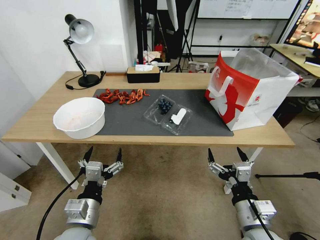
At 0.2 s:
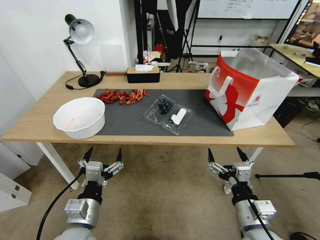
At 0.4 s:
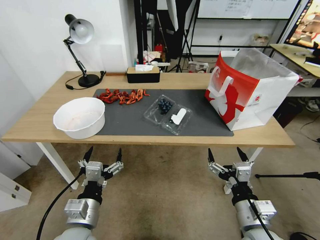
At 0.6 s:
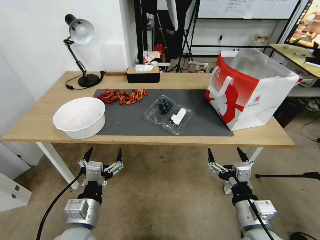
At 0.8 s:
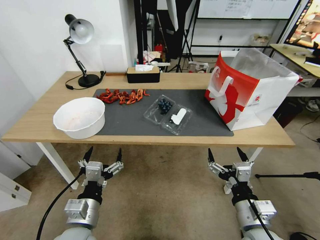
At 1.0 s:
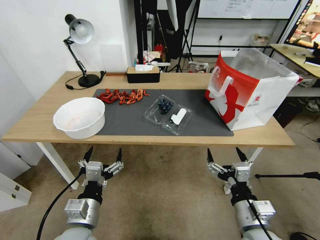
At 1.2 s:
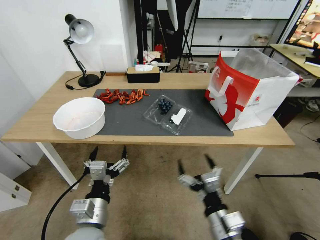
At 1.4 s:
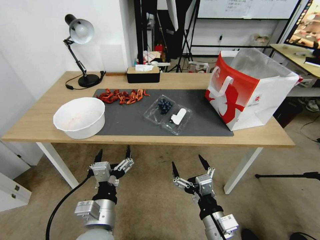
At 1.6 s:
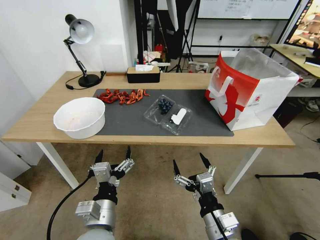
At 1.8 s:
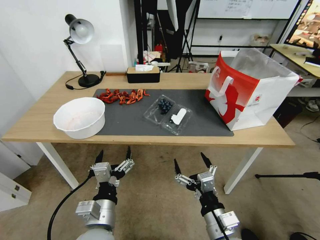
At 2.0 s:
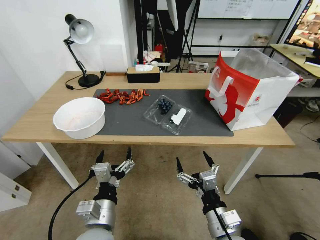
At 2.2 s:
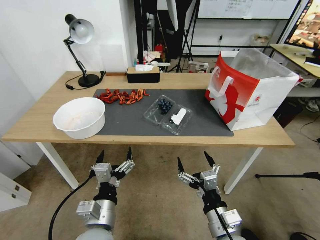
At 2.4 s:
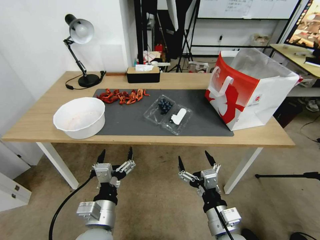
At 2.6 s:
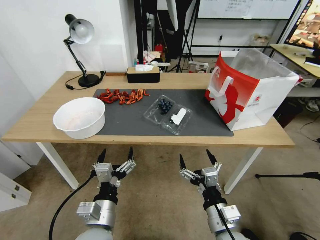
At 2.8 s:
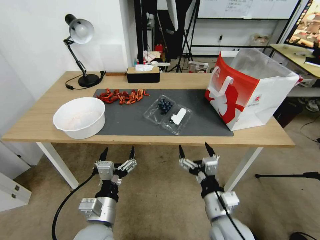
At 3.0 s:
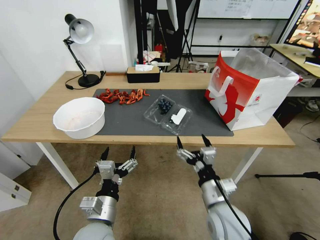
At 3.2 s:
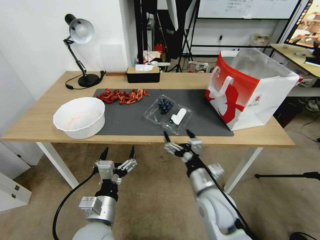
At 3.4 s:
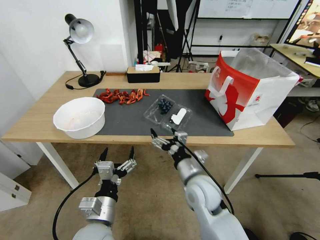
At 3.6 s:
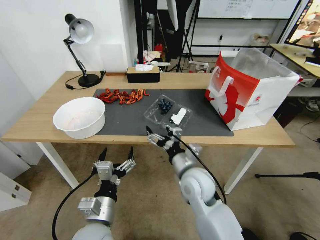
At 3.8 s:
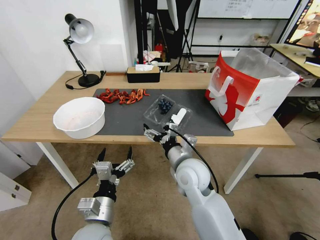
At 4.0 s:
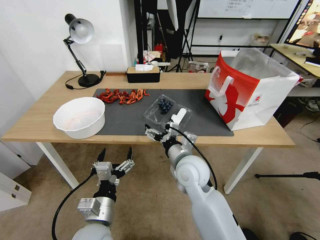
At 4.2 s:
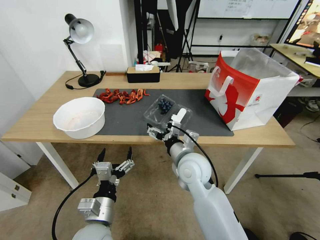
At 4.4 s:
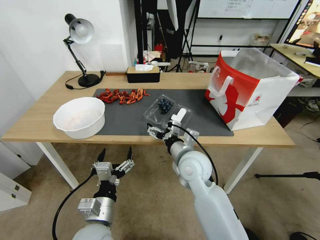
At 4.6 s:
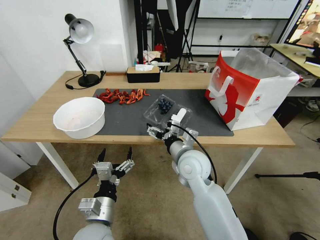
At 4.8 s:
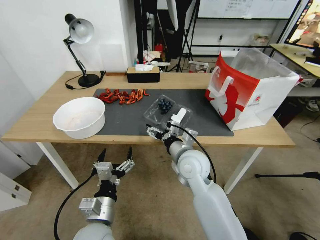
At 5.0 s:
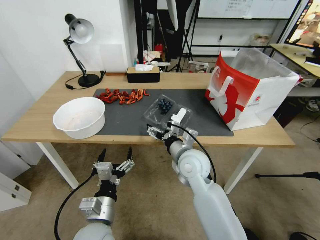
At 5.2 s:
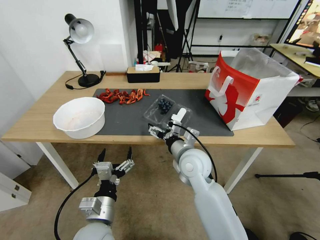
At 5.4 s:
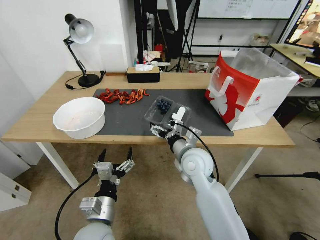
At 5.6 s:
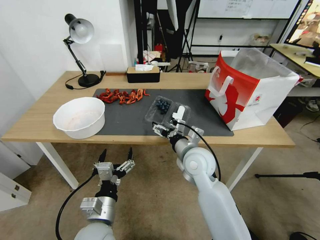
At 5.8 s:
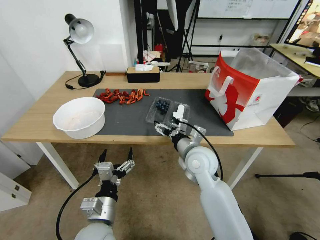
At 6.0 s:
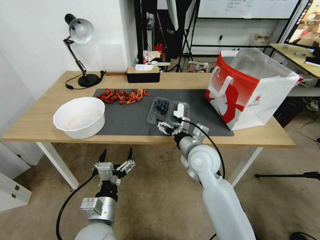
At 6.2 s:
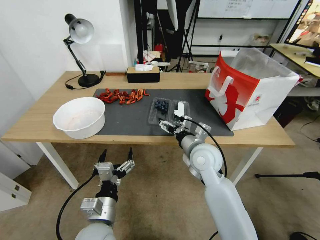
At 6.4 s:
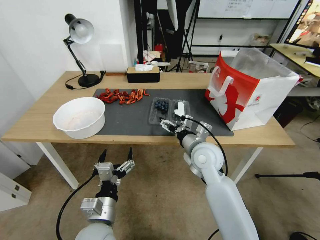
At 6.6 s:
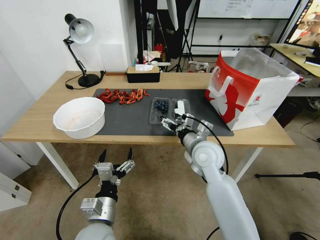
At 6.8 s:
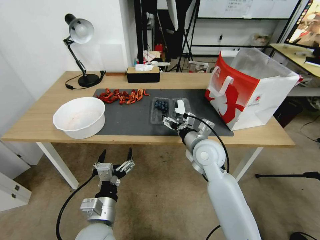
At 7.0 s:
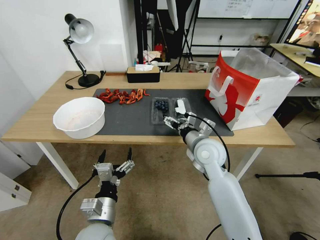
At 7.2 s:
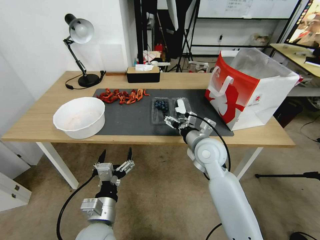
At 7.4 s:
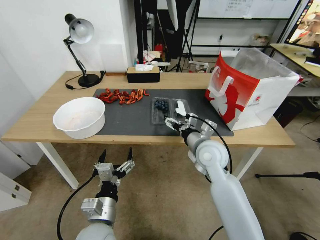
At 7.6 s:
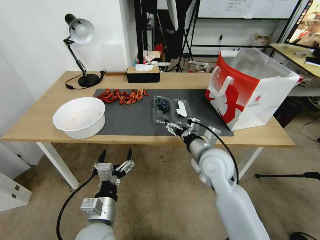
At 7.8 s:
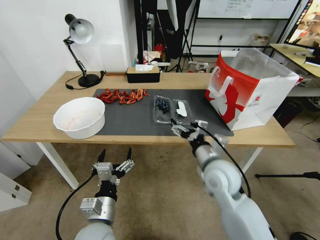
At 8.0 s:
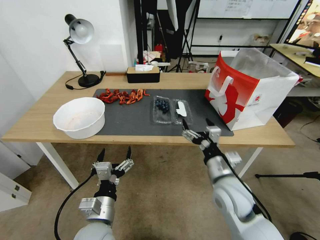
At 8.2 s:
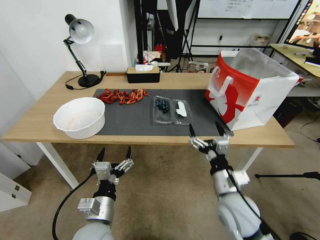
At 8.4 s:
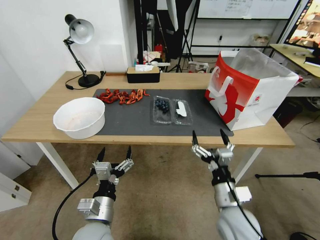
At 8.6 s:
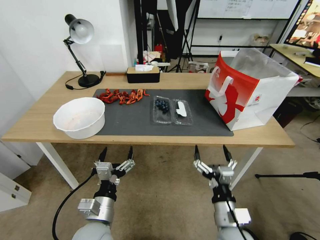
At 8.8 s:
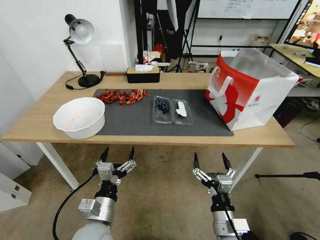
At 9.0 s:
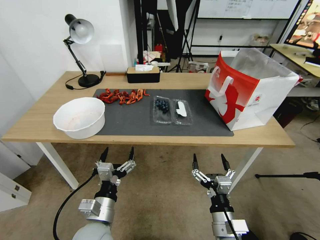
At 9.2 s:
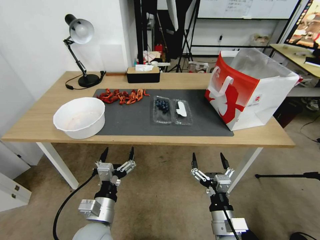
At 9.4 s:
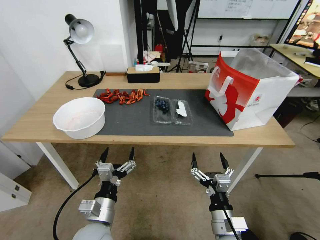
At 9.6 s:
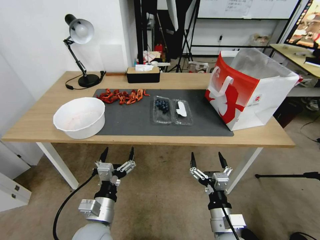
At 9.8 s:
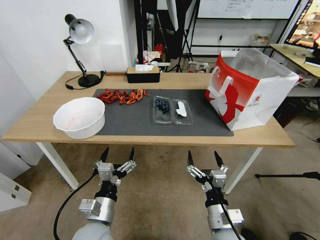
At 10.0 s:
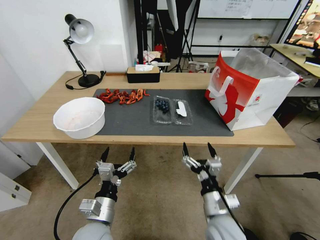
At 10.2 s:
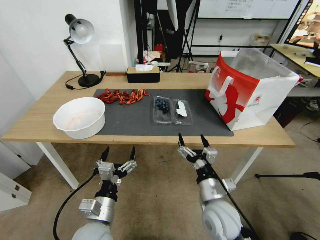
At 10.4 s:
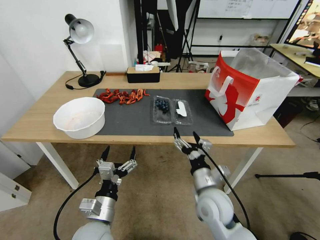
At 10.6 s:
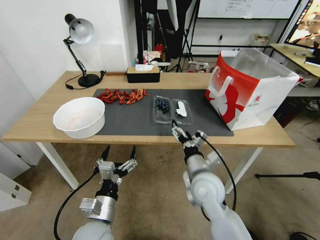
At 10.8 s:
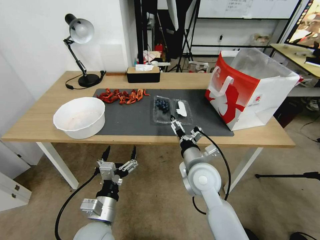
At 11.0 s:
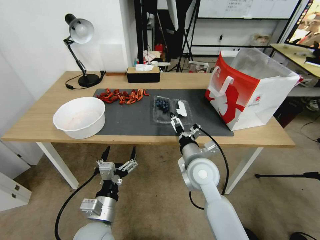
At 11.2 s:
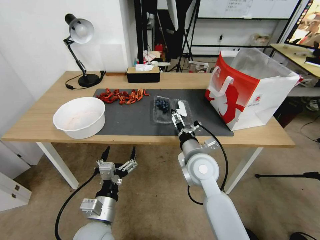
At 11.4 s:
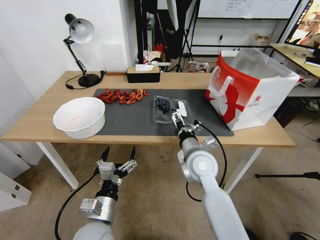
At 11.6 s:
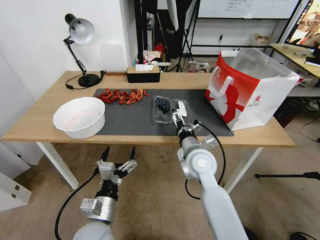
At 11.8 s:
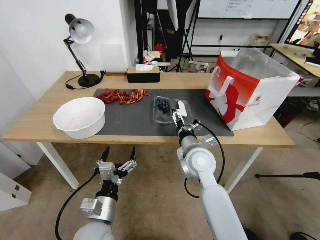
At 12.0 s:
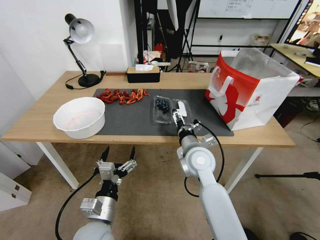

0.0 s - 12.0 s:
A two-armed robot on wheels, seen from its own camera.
Task of the whole recording: Close the takeout container lid, then place the container into the takeout bag.
1.6 s - 3.0 s: The right gripper travels forward by approximately 10 cm.
3.0 s - 4.4 s: The right gripper shifts roughly 15 cm forward, to the left and upward.
4.4 s - 6.0 s: The grippers stay close to where they were, moving slightly.
6.0 s - 7.6 s: There are only small adjustments of the grippers.
7.6 s - 9.0 s: The right gripper shifts about 25 cm backward and downward.
9.0 s - 10.4 s: The right gripper heads forward, covering roughly 10 cm.
10.4 s - 12.0 s: The right gripper travels forward and upward by roughly 10 cm.

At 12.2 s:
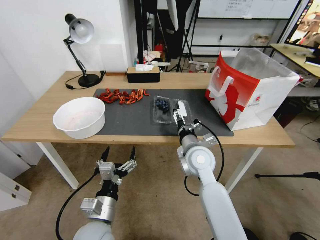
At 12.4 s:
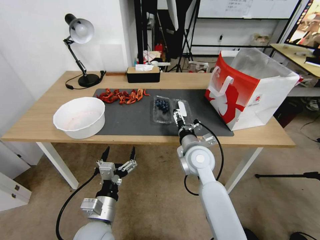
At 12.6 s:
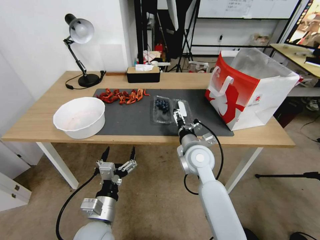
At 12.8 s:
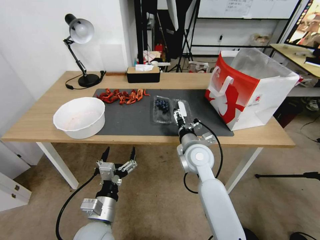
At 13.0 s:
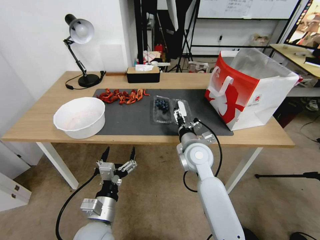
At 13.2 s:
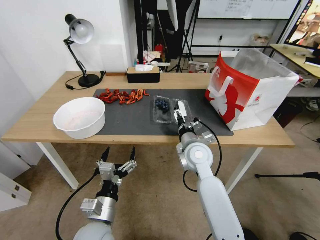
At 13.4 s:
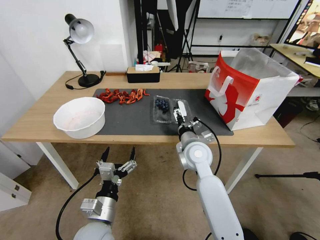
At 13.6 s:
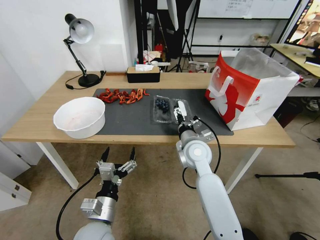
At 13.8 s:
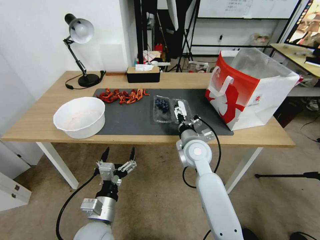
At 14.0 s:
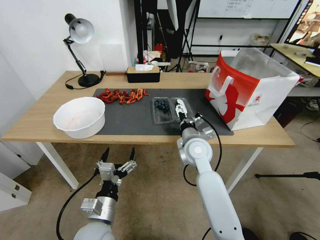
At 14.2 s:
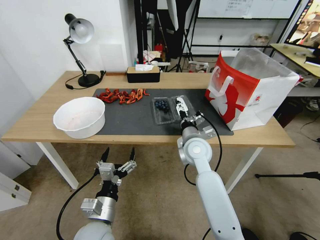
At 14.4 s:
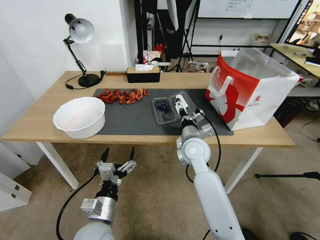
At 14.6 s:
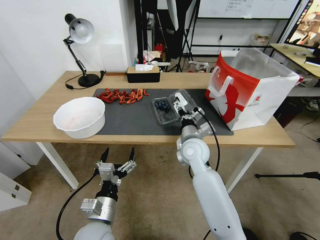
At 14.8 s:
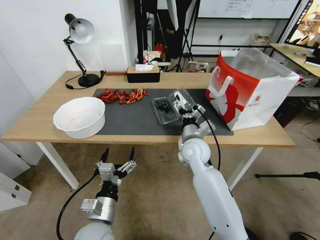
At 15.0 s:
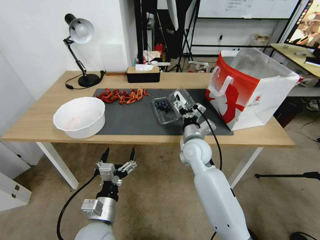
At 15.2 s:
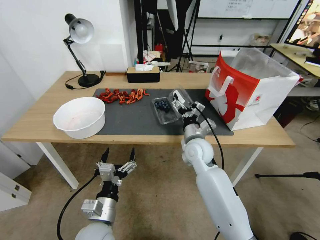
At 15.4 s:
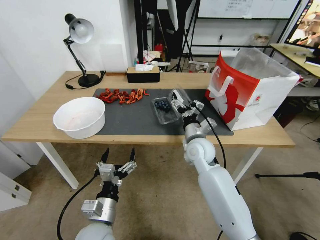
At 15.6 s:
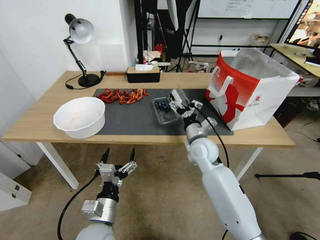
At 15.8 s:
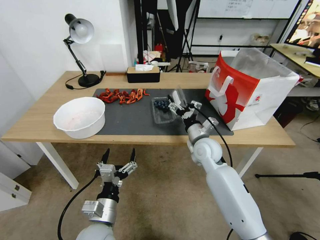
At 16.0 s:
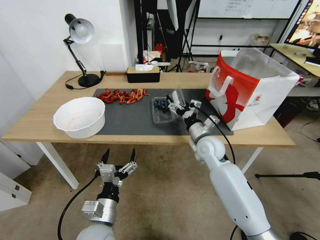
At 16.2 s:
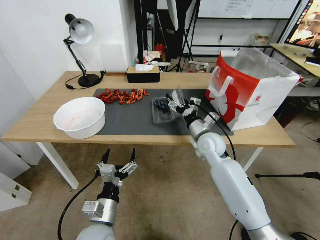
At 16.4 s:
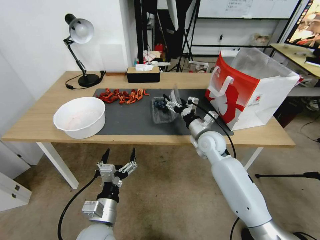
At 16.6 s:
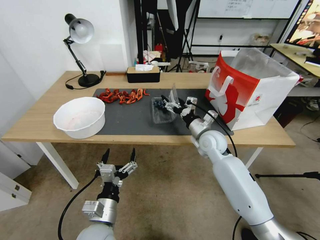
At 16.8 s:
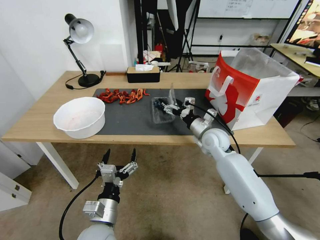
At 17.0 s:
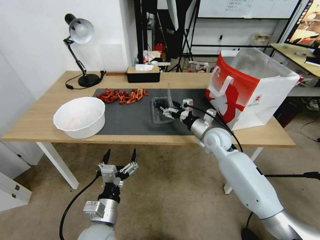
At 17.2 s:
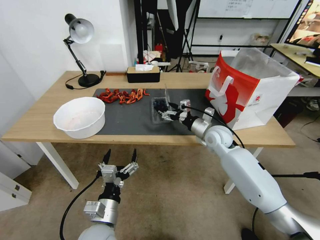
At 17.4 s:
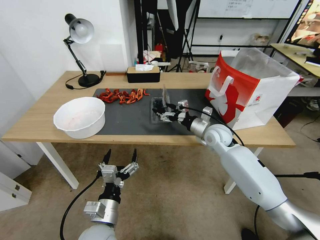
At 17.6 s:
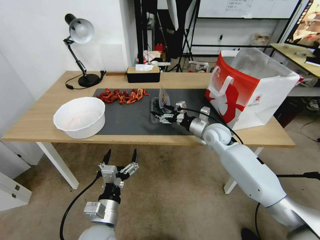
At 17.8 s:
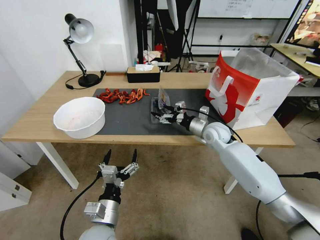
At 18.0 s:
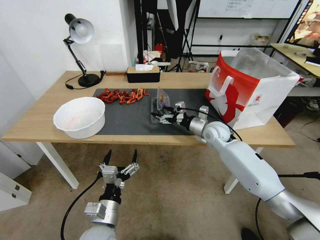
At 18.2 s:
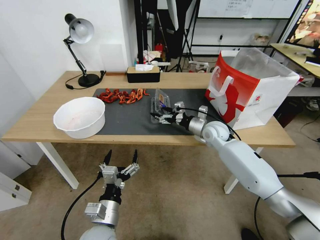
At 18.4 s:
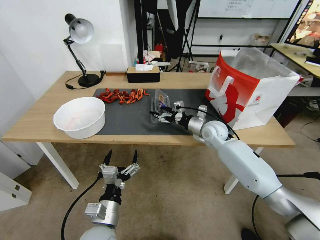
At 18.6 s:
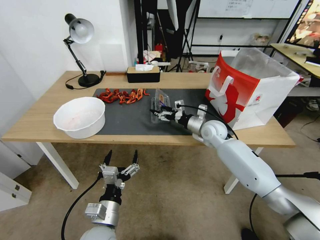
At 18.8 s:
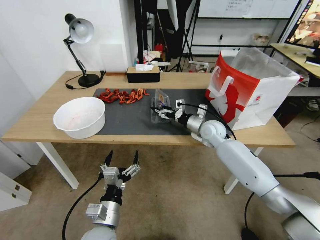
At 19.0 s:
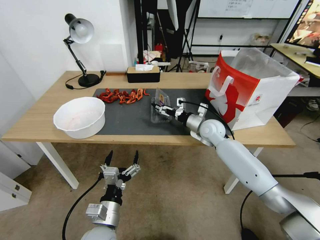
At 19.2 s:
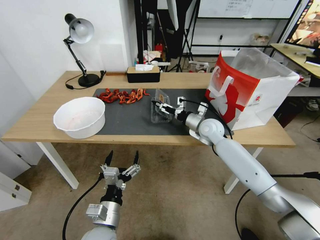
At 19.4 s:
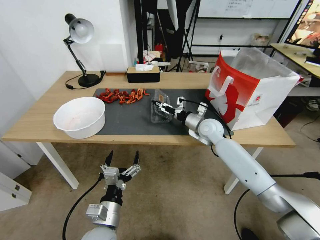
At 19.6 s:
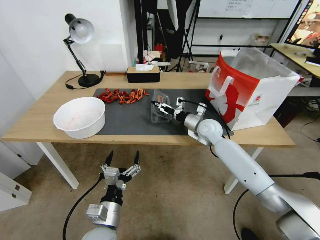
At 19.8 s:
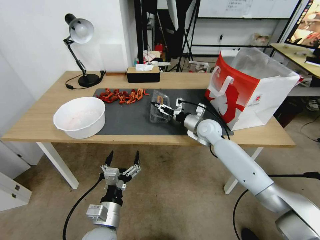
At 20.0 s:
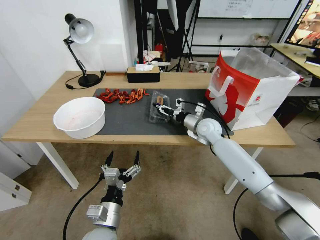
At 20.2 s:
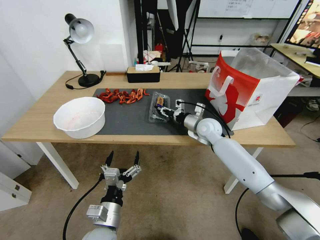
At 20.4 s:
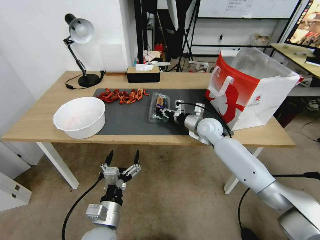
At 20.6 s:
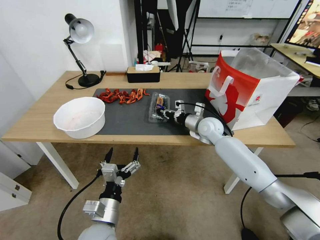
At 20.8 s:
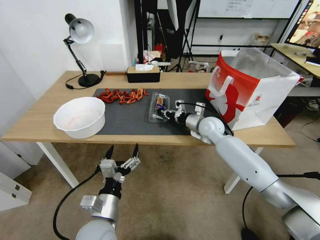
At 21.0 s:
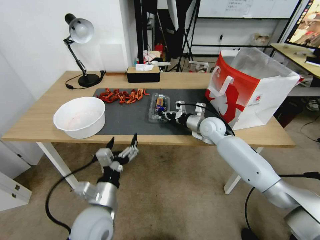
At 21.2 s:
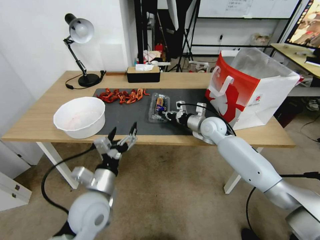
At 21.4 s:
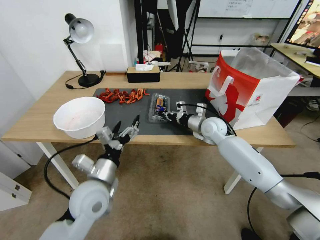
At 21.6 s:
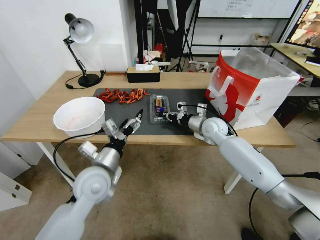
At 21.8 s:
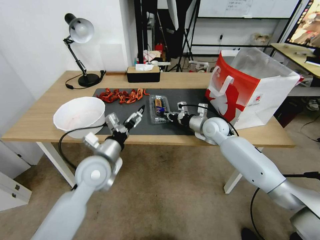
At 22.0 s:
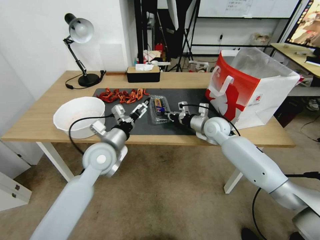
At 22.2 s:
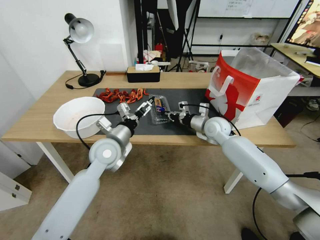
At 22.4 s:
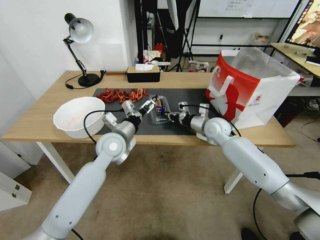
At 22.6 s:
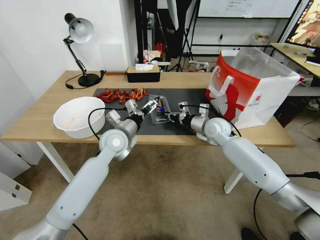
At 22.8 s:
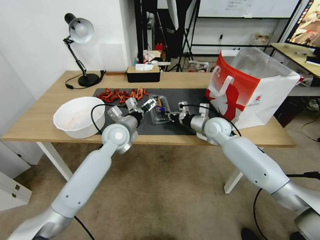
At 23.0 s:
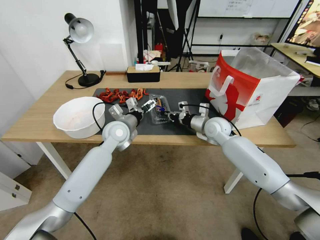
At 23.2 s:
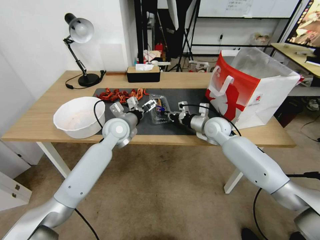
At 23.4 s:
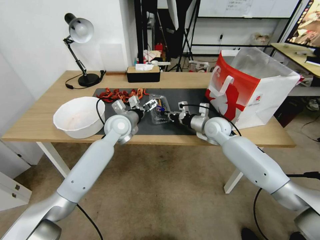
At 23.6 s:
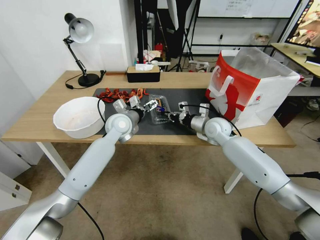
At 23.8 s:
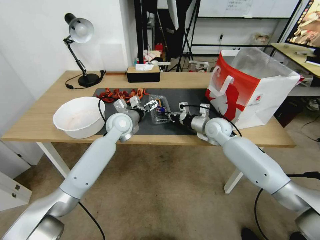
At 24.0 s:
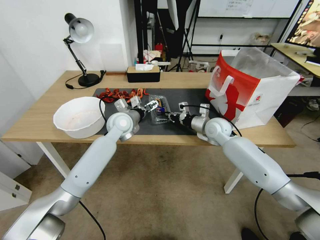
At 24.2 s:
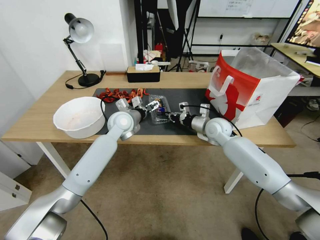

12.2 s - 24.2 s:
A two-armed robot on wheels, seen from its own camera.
Task of the whole recording: Close the takeout container lid, then place the container into the takeout bag.
12.2 s - 13.8 s: The grippers move only a little.
15.2 s - 16.6 s: The right gripper travels to the right by approximately 5 cm.
16.6 s - 18.2 s: The right gripper travels forward by roughly 5 cm.
19.8 s - 21.2 s: The left gripper travels upward and forward by approximately 10 cm, while the right gripper closes its fingers.
21.2 s - 22.6 s: The left gripper travels forward by approximately 20 cm.
22.6 s - 24.2 s: The left gripper is displaced forward by approximately 10 cm.
